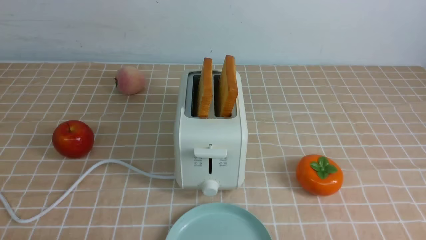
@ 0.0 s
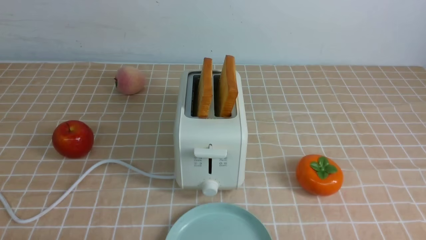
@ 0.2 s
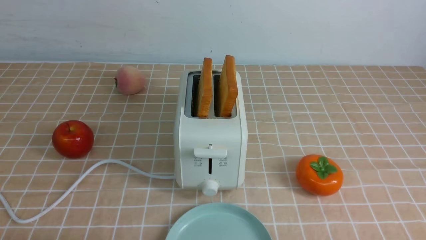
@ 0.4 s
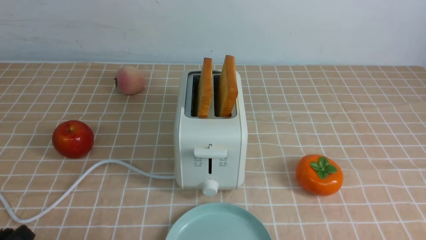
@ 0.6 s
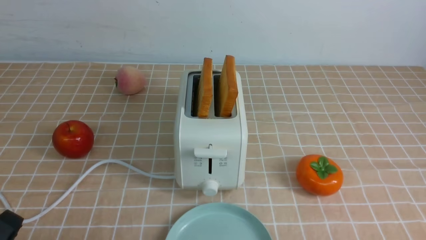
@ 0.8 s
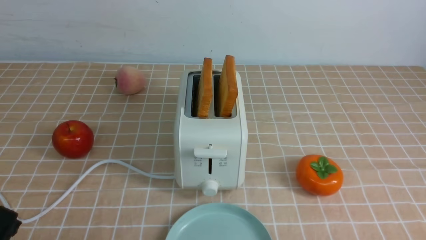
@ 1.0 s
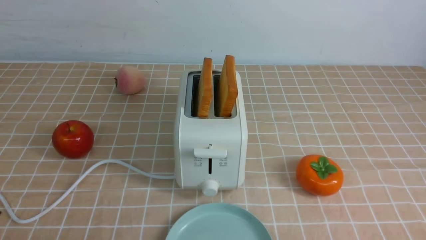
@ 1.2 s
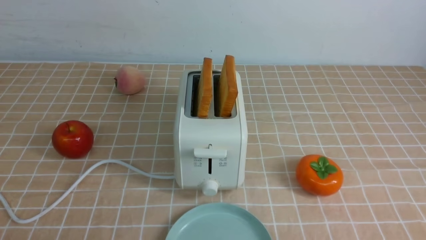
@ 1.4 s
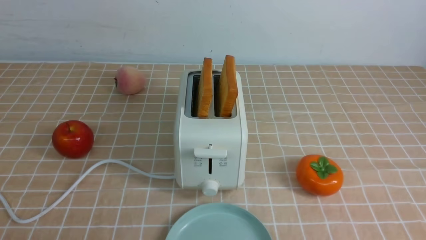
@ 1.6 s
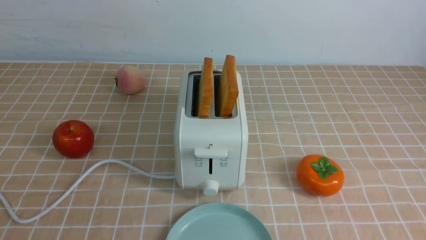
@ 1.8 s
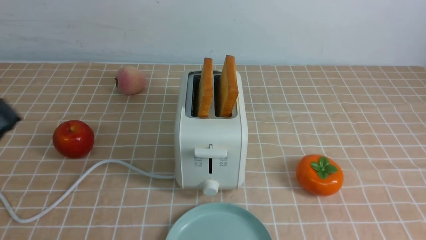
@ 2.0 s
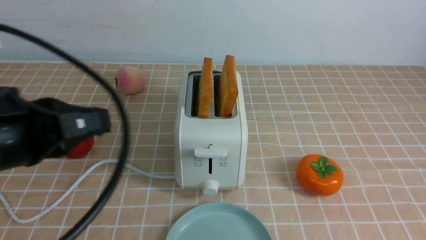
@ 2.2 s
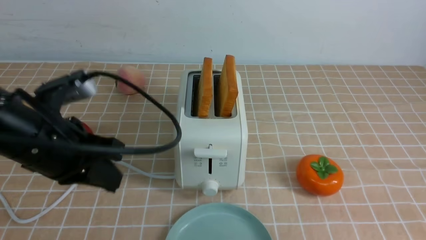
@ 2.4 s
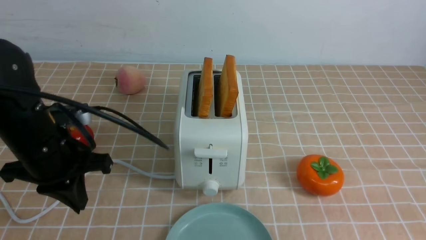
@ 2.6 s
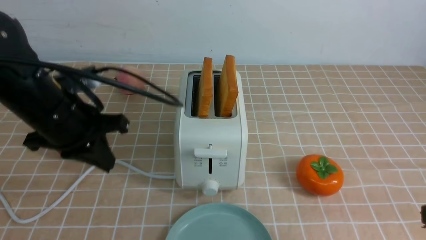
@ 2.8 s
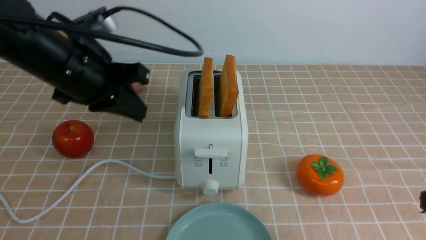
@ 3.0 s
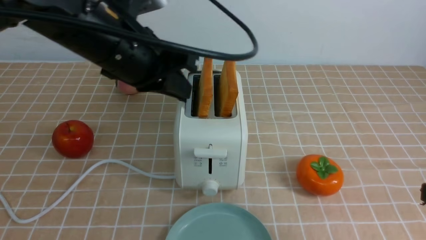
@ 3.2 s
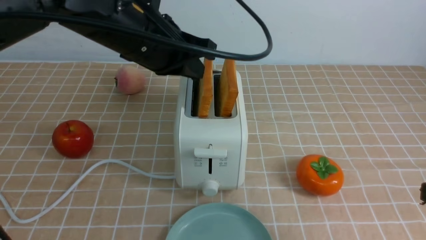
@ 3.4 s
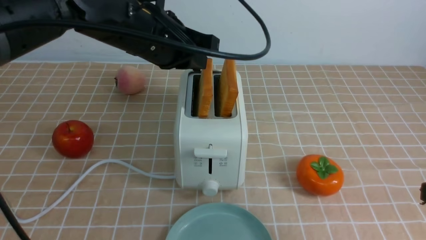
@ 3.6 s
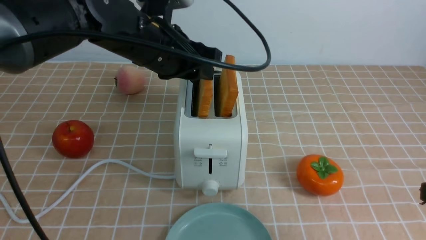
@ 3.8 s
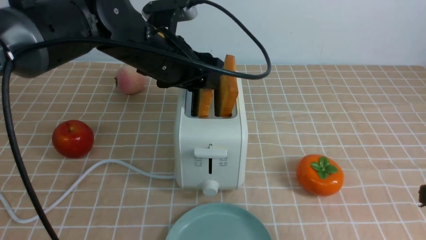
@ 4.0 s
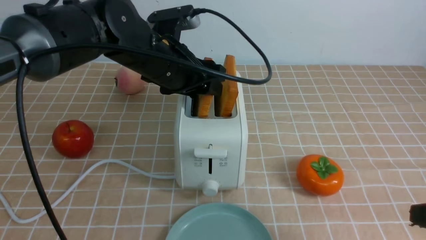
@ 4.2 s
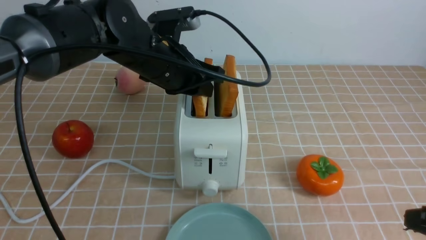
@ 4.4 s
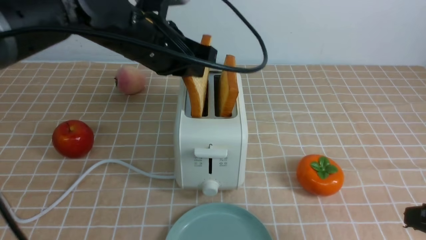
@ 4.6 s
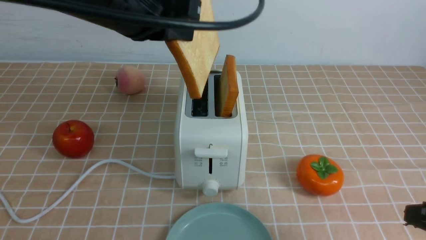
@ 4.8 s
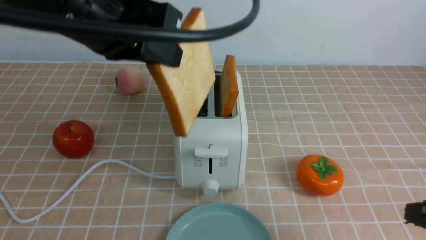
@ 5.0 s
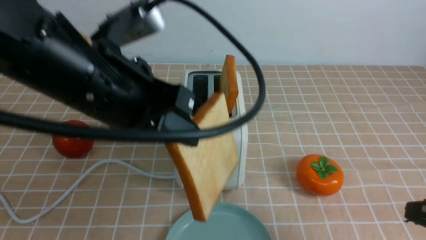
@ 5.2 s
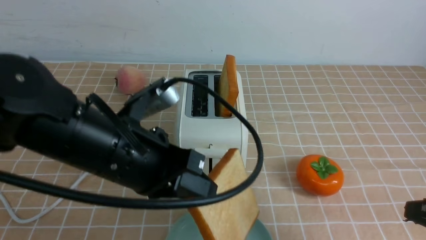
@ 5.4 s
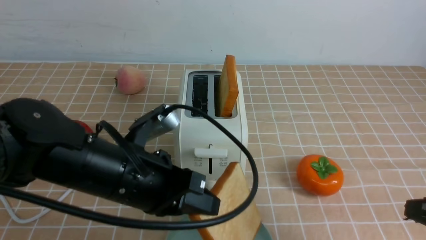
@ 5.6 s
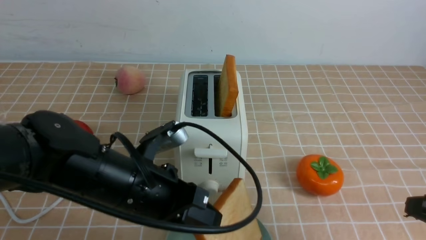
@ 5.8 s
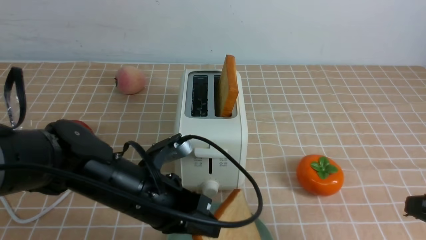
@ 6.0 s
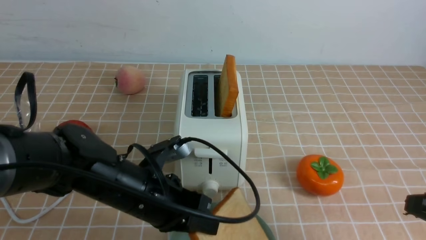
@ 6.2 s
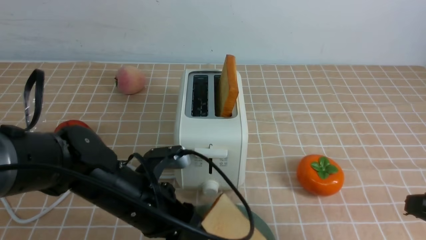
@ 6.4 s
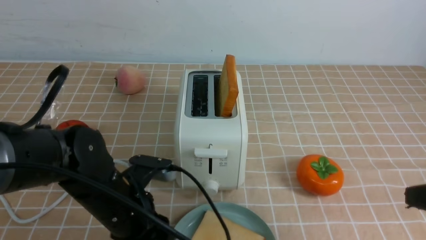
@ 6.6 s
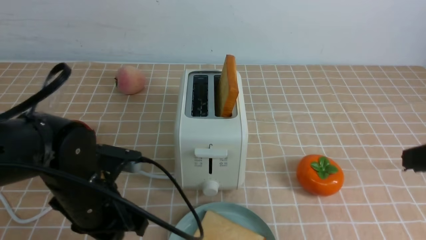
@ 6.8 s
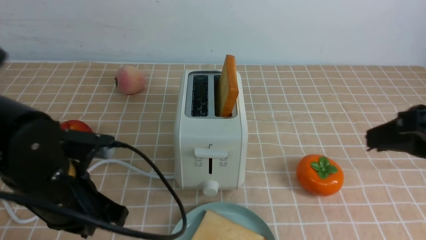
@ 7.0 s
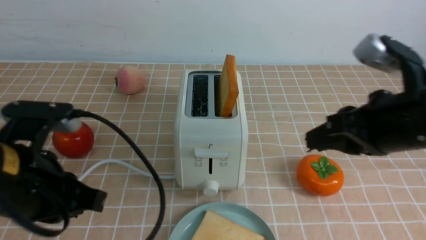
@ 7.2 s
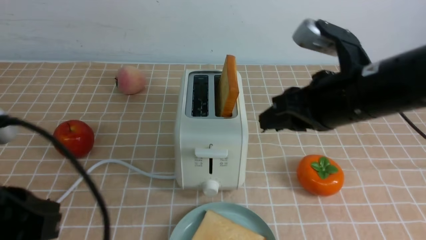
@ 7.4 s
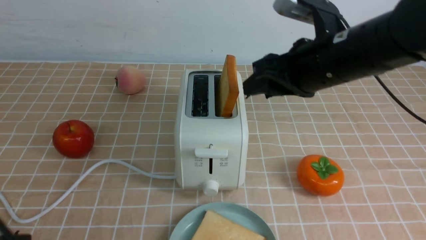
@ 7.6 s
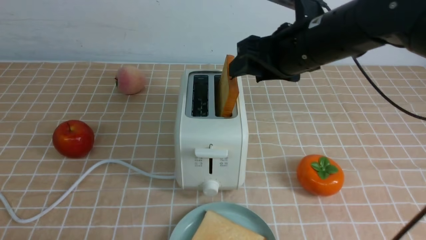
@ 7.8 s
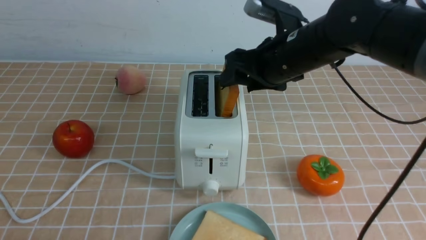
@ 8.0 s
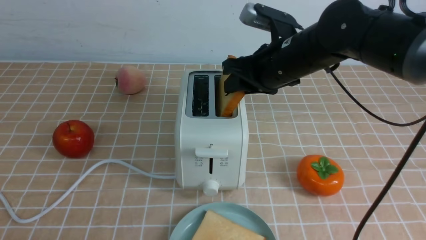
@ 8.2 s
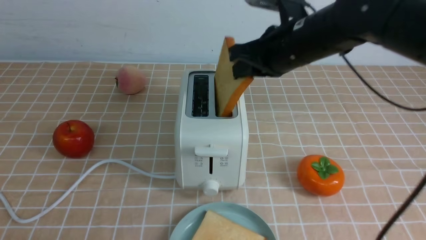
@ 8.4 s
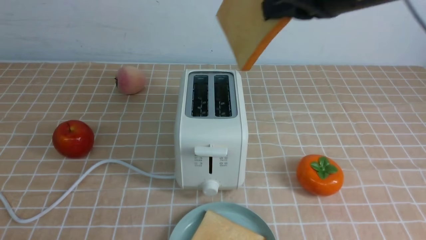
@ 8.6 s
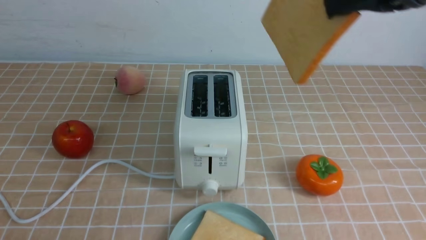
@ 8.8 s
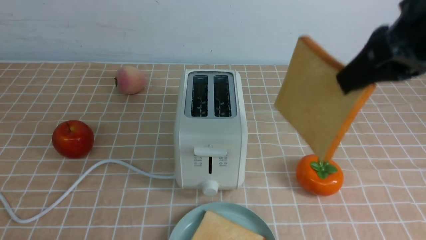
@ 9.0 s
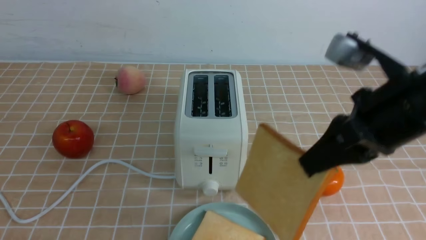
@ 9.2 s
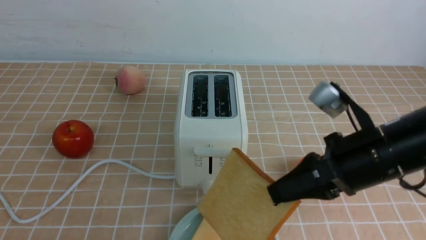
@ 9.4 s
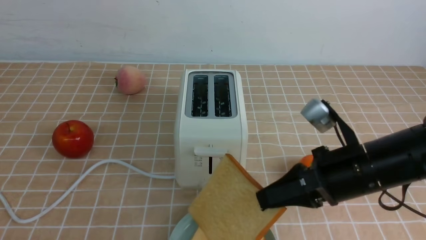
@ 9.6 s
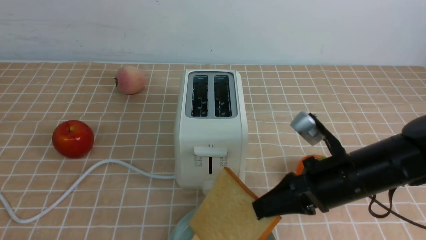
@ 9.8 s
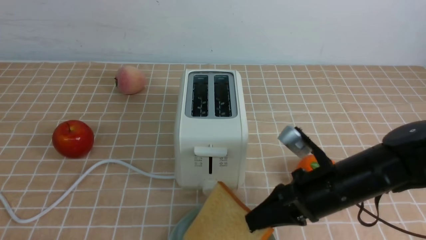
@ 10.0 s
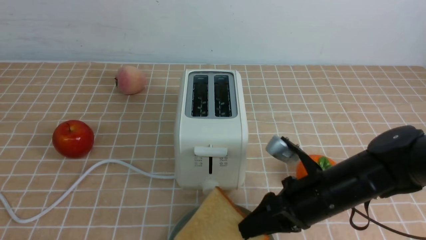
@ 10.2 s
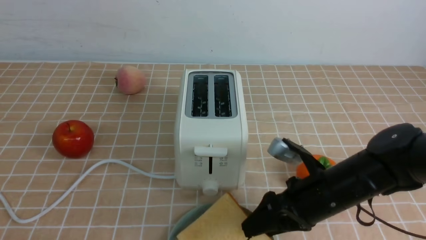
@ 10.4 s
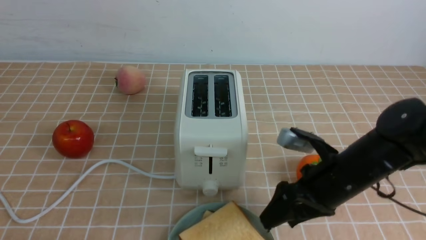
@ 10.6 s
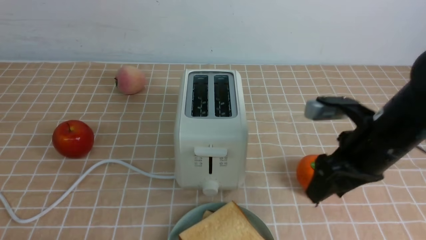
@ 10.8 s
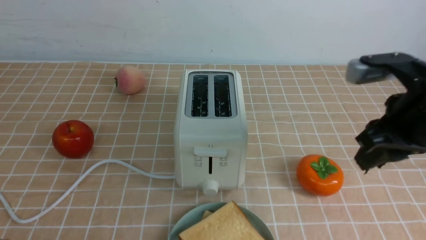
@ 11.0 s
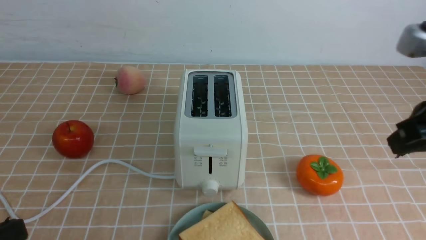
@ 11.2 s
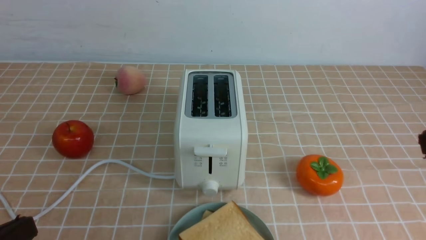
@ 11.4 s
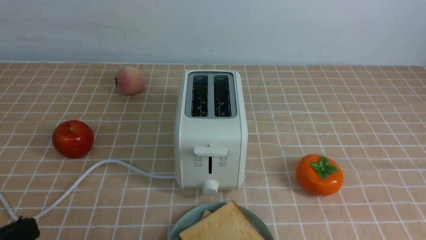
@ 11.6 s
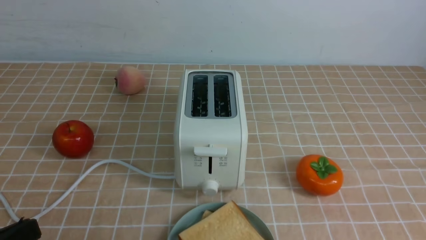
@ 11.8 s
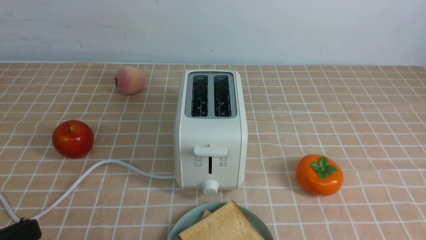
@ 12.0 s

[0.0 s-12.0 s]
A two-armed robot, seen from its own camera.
Task of the whole recording: take toasted bread from bread machine on light coffee tablecloth place on plate.
Step, 0.0 to 4.8 s: use the left arm to take out a slice of bread.
Step, 5.0 to 6.8 s: use the left arm to put a slice of bread into the empty plate.
Step, 7.0 to 8.4 s: use the right arm to take out a slice of bread.
Step, 8.6 to 10.4 s: use the right arm to put a slice of bread into the plate.
1.6 to 3.0 s: The right gripper heads upward and forward, covering roughly 10 cm. Meanwhile the left gripper shifts approximately 30 cm forward and to the right.
3.0 to 4.4 s: The left gripper is displaced to the right and forward by roughly 10 cm, and opens up.
4.4 to 6.0 s: The left gripper travels downward and backward by some 20 cm.
6.0 to 7.6 s: The left gripper heads backward, to the left and upward, covering approximately 25 cm, and opens and closes again; the right gripper travels forward, to the left and upward by roughly 25 cm, and opens.
7.6 to 9.0 s: The right gripper goes approximately 10 cm backward, to the right and upward, and closes up.
9.0 to 10.4 s: The right gripper heads downward, covering some 20 cm, and opens up.
10.4 to 12.0 s: The right gripper moves backward, to the right and upward, about 30 cm, and closes up.

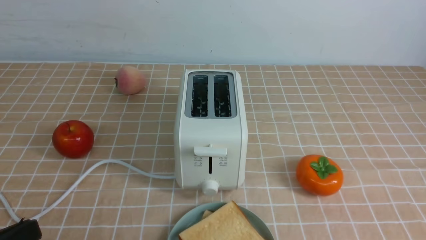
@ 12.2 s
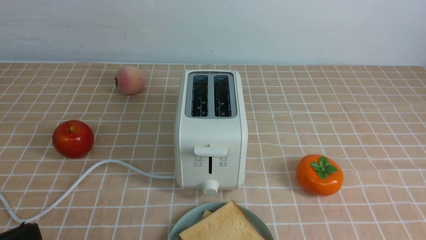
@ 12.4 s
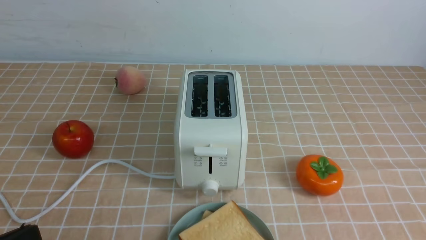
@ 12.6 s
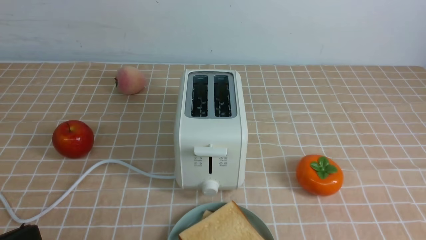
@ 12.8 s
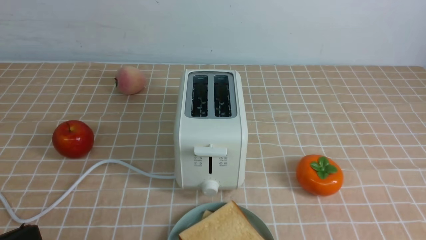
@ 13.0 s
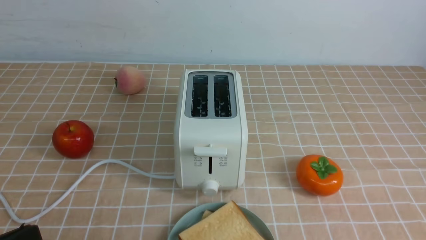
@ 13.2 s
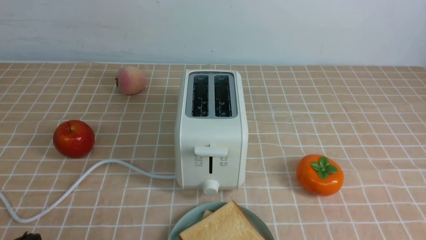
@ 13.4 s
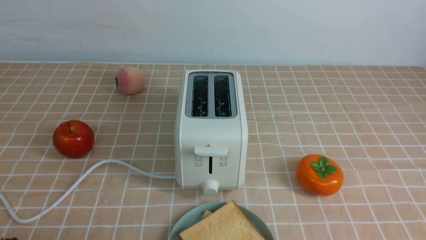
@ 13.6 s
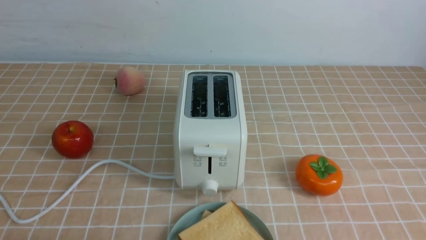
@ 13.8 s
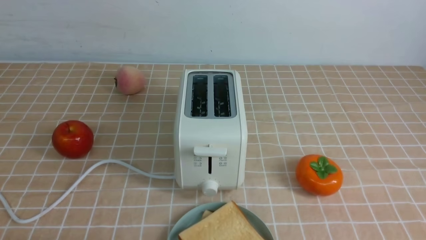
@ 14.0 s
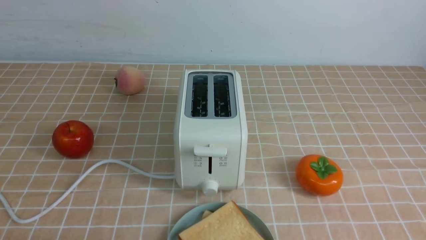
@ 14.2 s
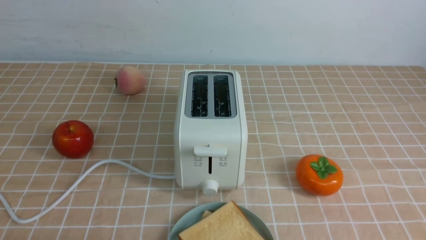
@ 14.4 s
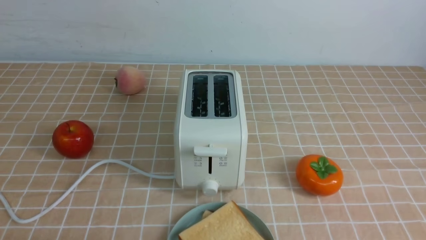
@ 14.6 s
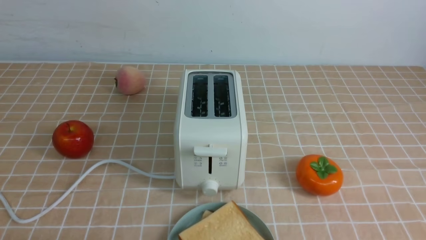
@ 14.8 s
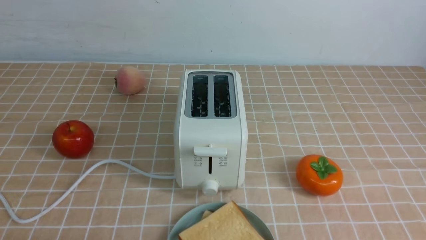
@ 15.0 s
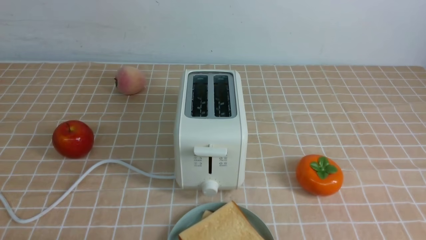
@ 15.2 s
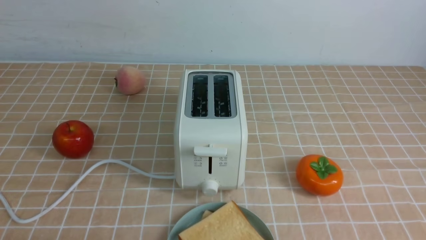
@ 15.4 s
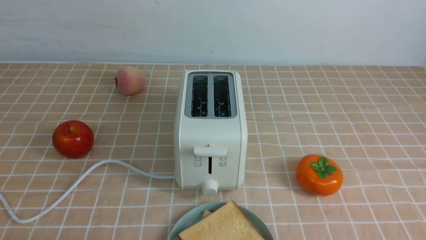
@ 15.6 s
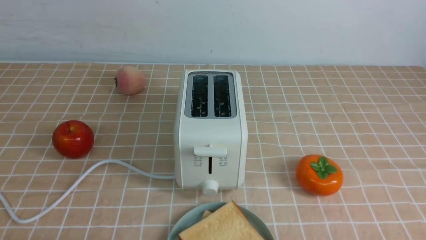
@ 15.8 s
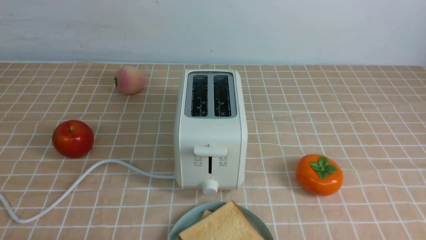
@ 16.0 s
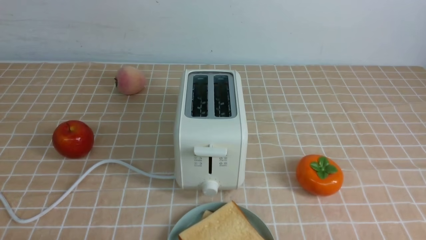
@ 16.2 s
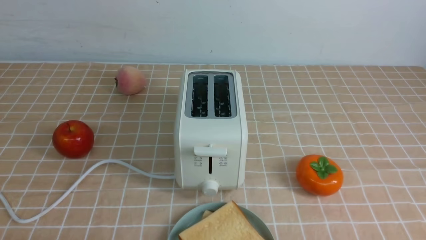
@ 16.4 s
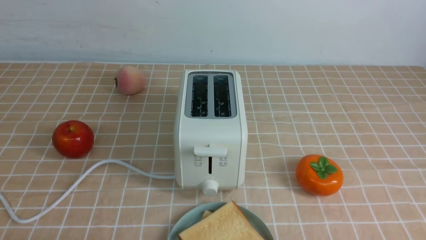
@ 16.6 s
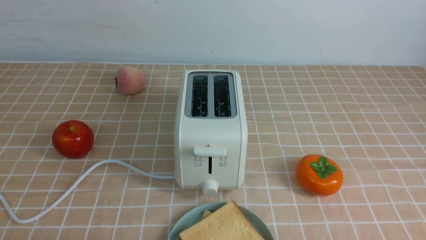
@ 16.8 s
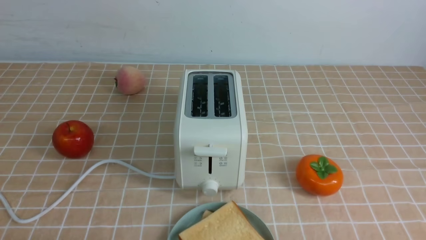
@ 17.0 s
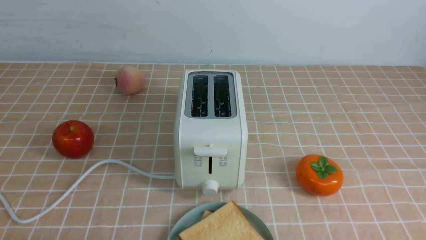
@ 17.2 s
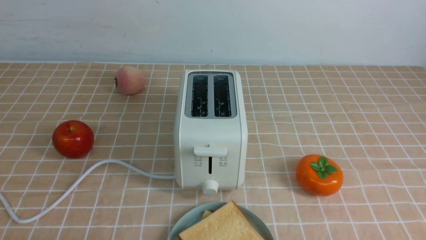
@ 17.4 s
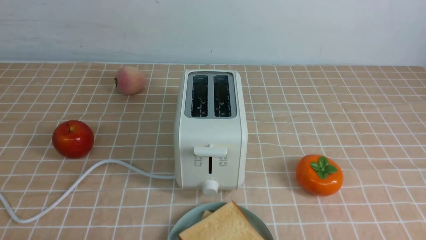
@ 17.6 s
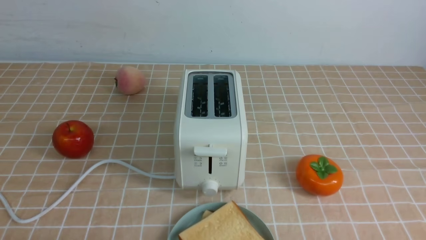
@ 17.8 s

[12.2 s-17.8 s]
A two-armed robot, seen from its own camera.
Task of the whole recording: take toasted bread from bread machine on light coffee tablecloth place on plate.
12.2 to 13.6 s: The left gripper moves downward, about 5 cm.
16.4 to 17.8 s: Both grippers stay about where they are.
